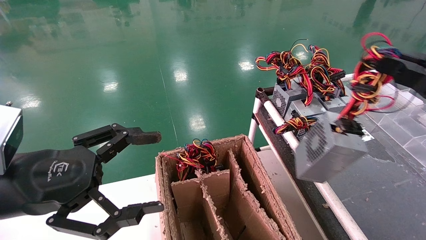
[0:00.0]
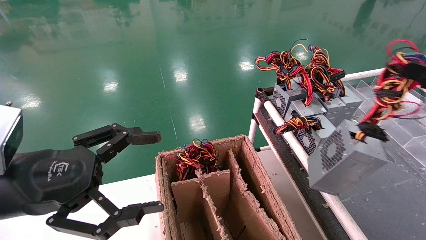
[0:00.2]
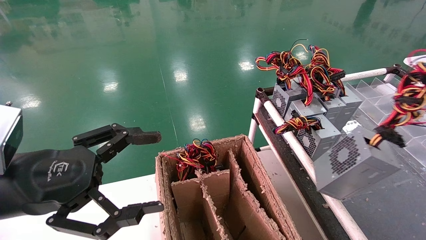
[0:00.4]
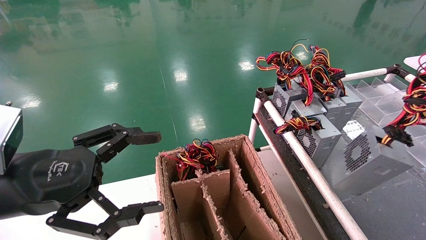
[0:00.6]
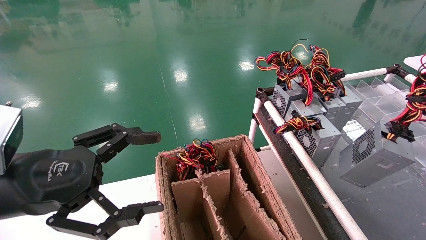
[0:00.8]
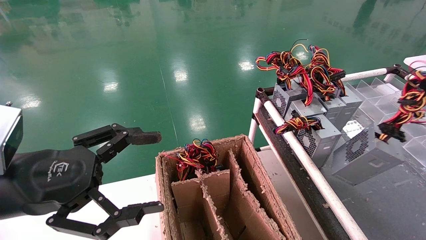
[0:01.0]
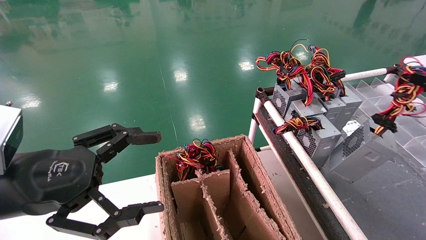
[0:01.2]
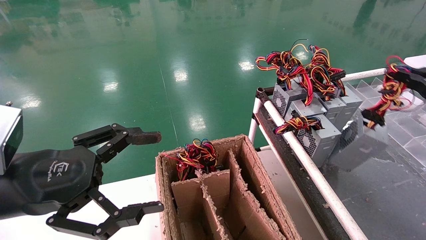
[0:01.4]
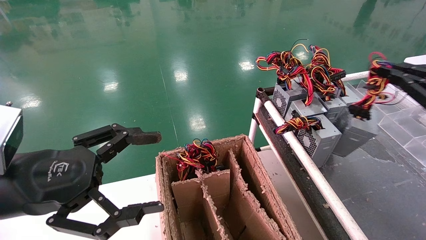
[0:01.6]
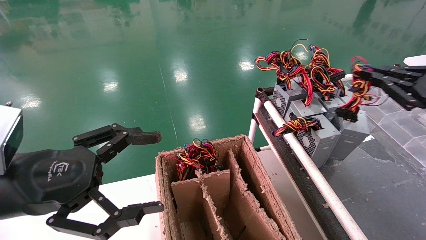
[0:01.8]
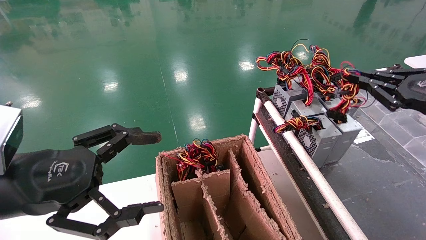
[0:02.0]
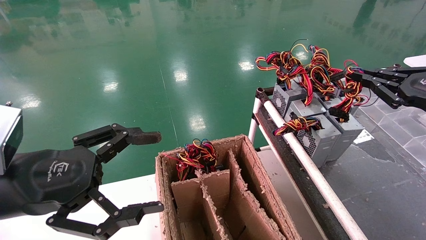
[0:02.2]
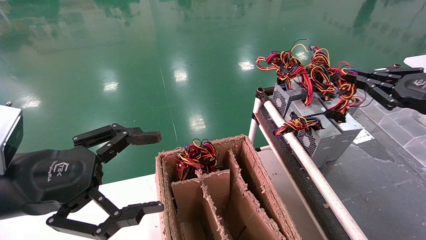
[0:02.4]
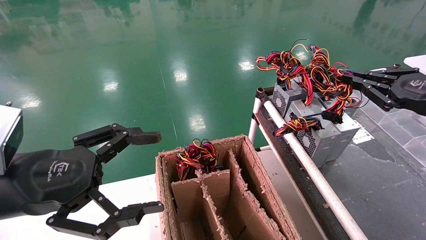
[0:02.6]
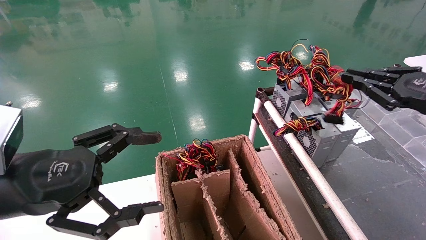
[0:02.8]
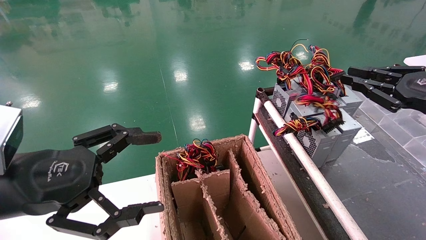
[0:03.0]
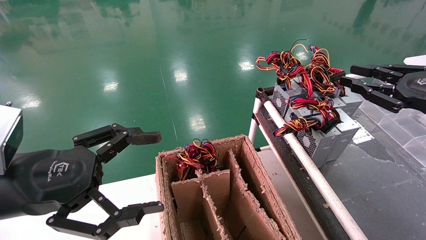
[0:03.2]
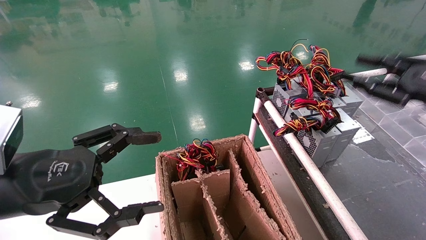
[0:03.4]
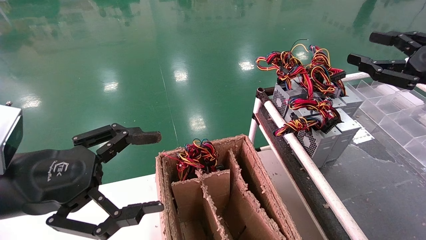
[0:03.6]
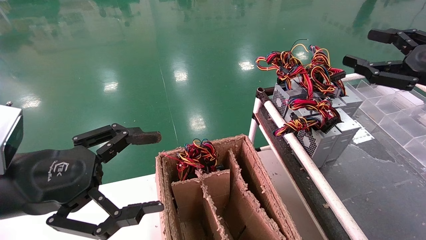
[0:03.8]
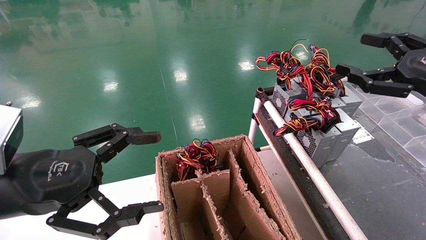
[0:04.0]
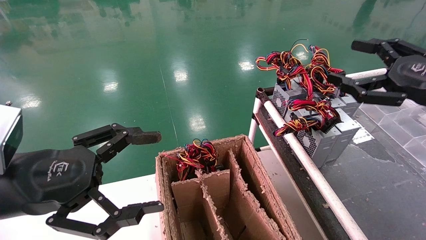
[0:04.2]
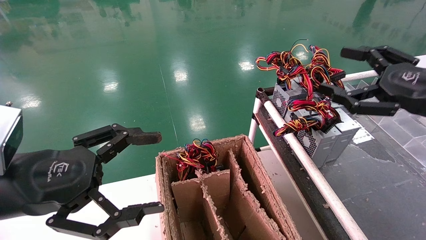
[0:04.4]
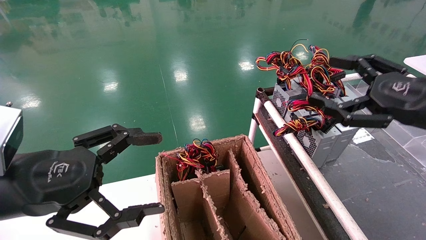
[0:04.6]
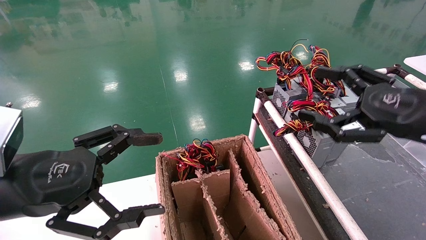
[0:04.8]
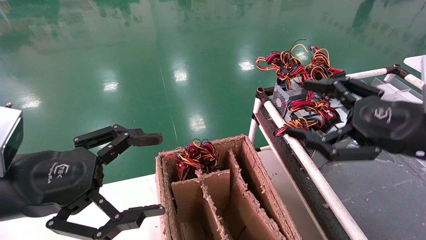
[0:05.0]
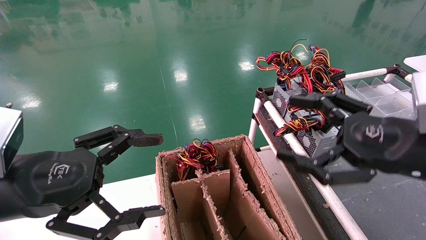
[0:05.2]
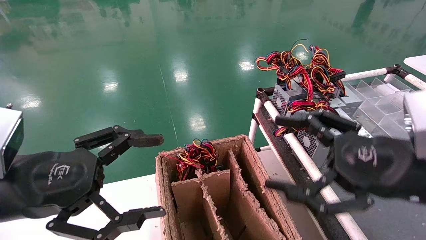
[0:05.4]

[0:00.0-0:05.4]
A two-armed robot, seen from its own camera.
Step, 0:00.0 to 0:02.8: Place the power supply on the operating table.
0:00.0 to 0:01.4: The right gripper is displaced to the right and forward by about 10 cm.
0:01.4 to 0:02.8: The right gripper goes roughly 5 cm forward and to the left.
0:02.8 to 0:04.0: The right gripper opens.
0:04.0 to 0:05.4: The right gripper moves to the left, backward and downward, roughly 15 cm.
